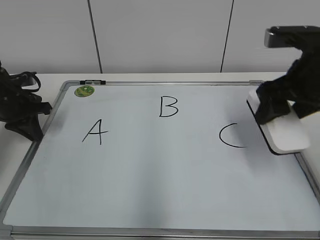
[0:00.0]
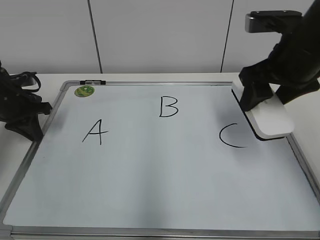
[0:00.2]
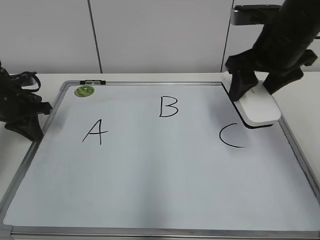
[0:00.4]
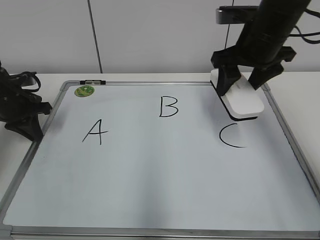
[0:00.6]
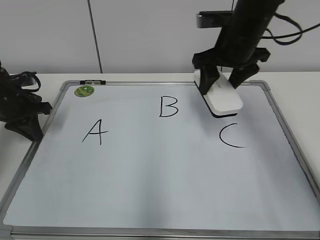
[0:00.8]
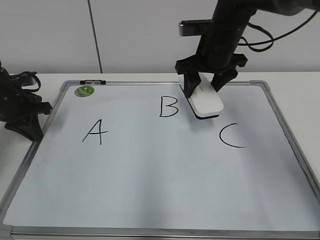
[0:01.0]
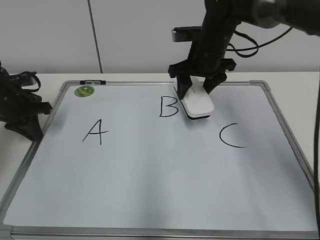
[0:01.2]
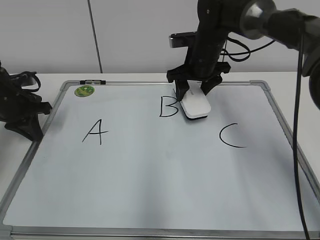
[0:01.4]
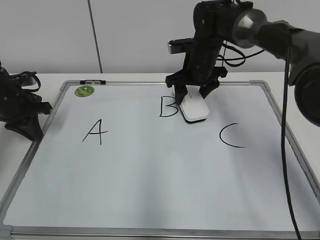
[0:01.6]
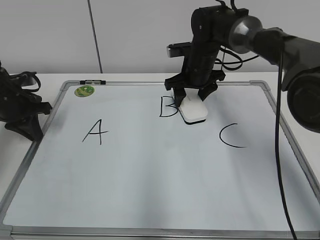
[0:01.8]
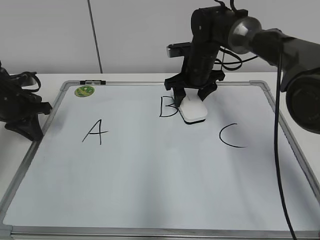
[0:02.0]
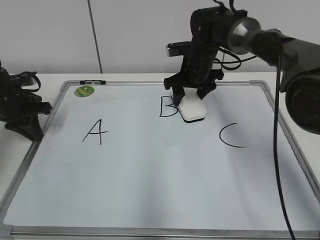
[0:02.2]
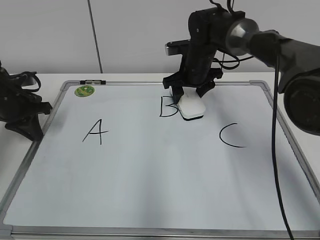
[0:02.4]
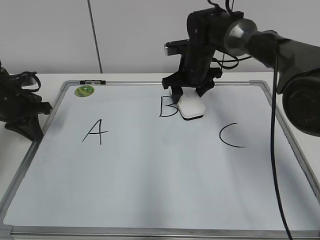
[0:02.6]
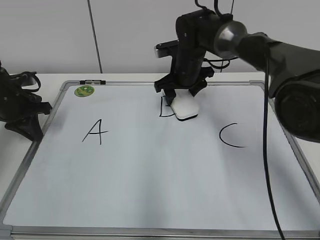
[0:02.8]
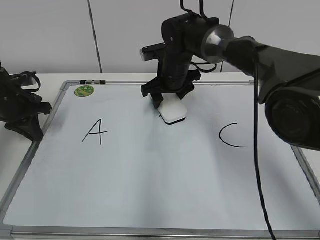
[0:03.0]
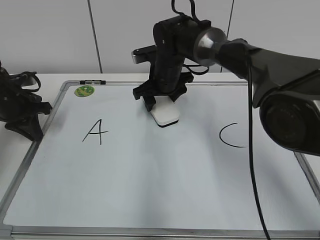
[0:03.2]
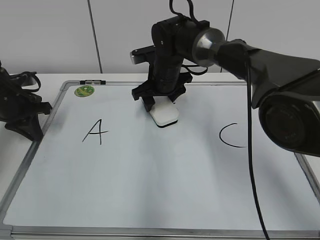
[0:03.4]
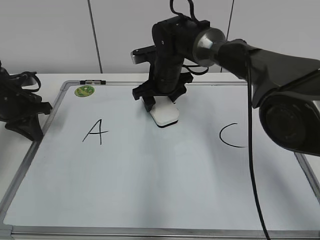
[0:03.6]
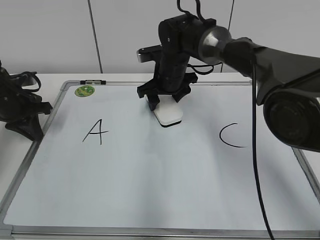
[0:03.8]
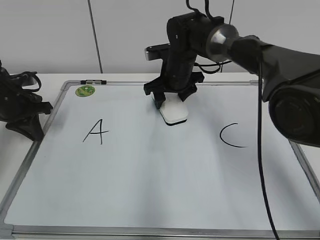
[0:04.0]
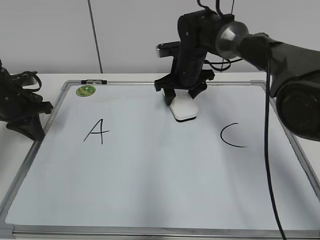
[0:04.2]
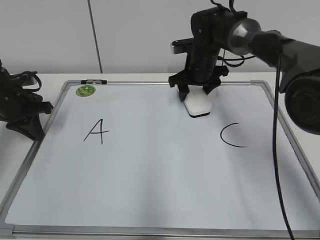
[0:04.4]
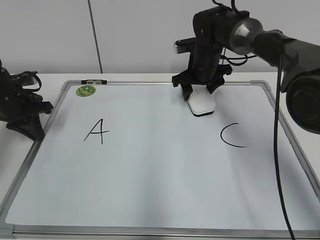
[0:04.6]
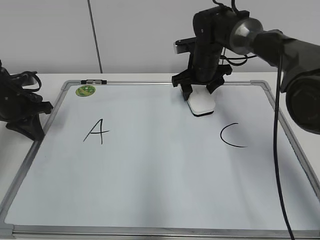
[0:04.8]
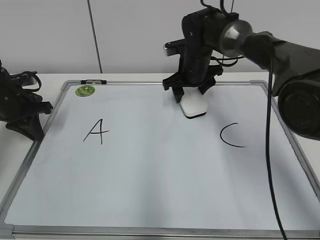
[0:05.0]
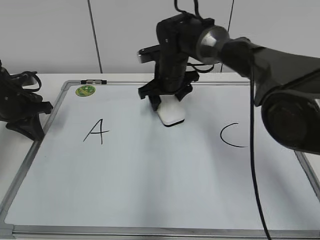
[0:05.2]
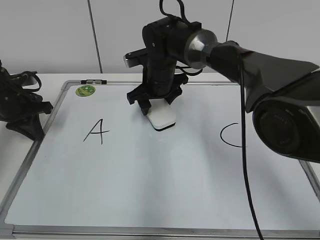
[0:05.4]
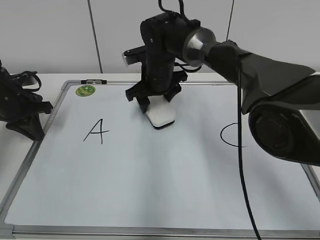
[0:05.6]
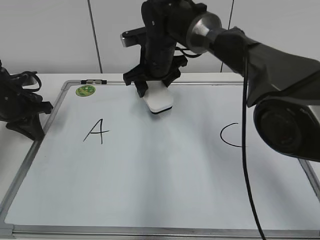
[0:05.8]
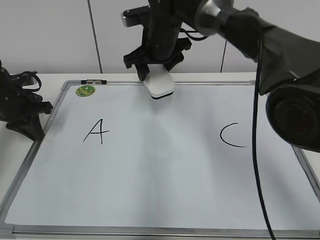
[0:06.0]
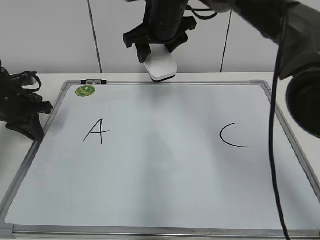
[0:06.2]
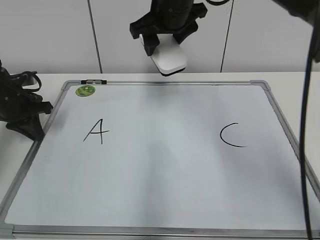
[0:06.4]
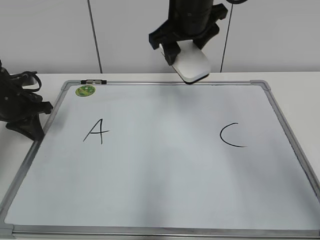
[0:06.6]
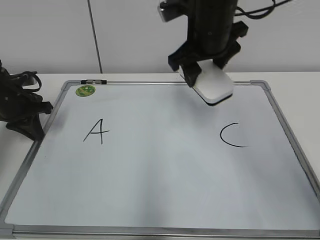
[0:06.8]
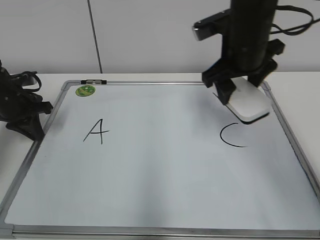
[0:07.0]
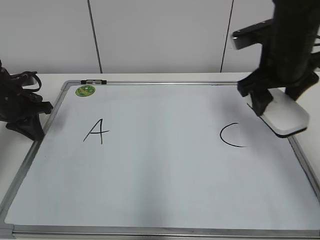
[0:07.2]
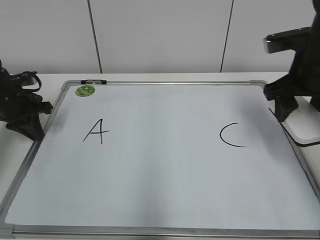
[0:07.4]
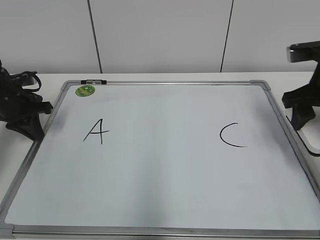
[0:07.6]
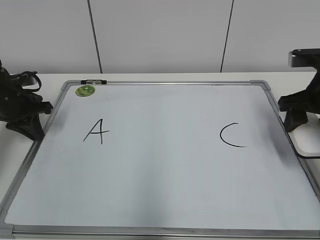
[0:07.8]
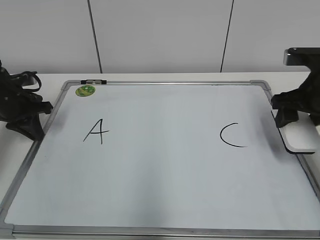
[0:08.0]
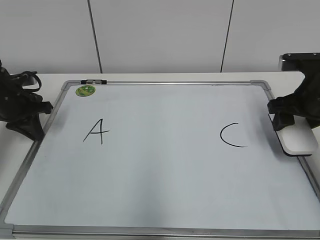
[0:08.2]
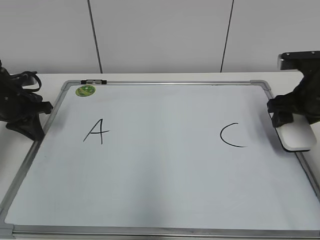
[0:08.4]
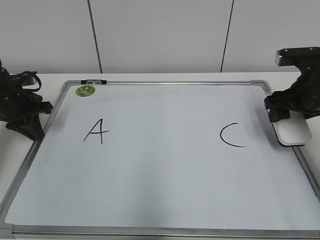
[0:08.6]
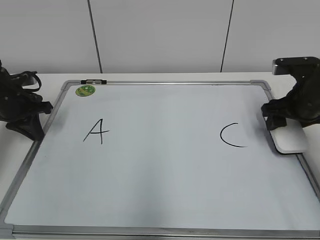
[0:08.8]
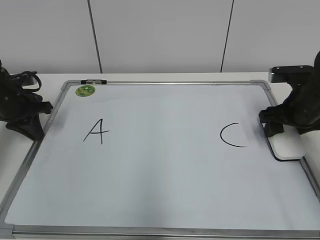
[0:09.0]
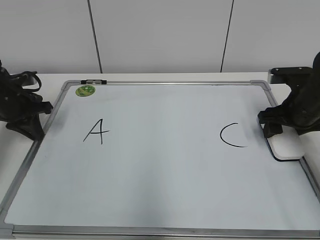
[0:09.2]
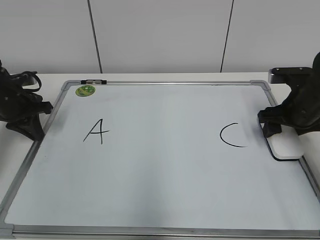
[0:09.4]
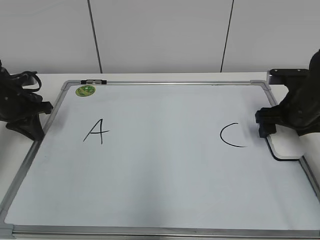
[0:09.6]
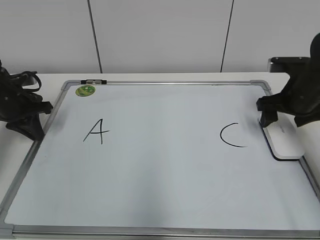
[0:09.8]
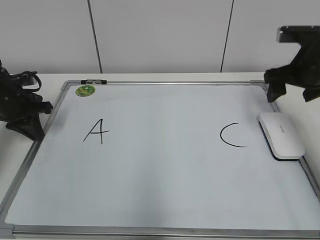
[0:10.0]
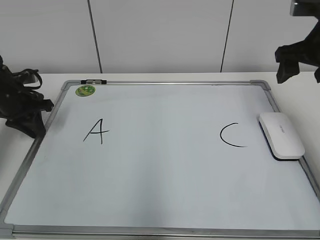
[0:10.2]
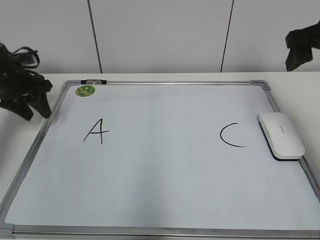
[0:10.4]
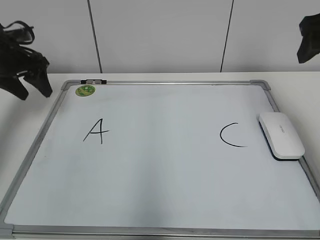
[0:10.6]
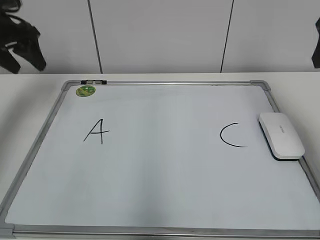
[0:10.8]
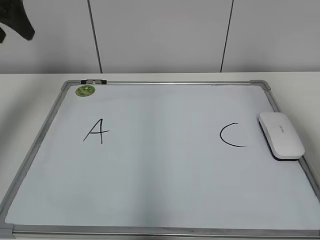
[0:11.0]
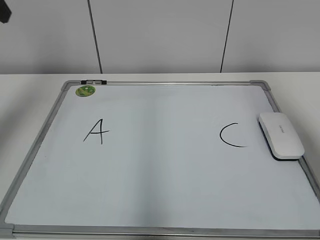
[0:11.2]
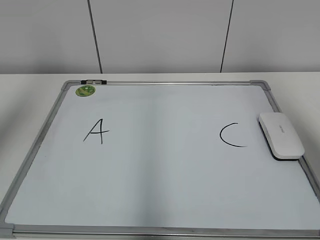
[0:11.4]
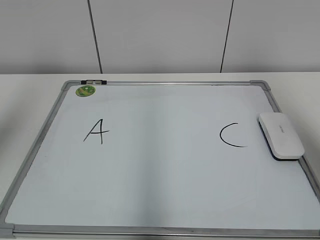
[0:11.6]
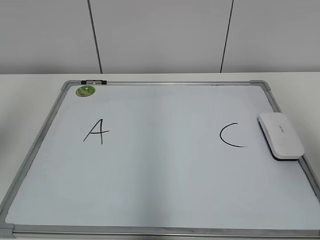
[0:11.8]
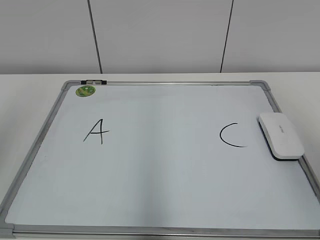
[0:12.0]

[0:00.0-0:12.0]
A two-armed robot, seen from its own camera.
Task of the whole recording: pick up the eraser on the blackboard and erase the letter "B".
Step, 0:00.0 to 0:05.4: Erase the letter B with your right hand.
Step, 0:05.6 to 0:09.6: Put down the eraser with your right hand.
0:00.0 to 0:01.6: The right gripper moves forward, to the left and downward, about 25 cm.
0:01.6 to 0:03.0: The right gripper is displaced to the left by about 5 cm.
0:03.0 to 0:04.4: The right gripper moves to the right, approximately 5 cm.
0:04.4 to 0:06.0: The right gripper travels to the left and upward by approximately 15 cm.
0:06.0 to 0:07.6: The right gripper goes roughly 30 cm to the right and backward.
0:07.6 to 0:09.0: The right gripper heads downward, covering some 5 cm.
0:09.0 to 0:10.4: The right gripper travels upward by about 15 cm, and opens up, while the left gripper ends up some 5 cm from where it was, and opens.
0:10.4 to 0:12.0: The grippers both shift backward and upward by about 30 cm.

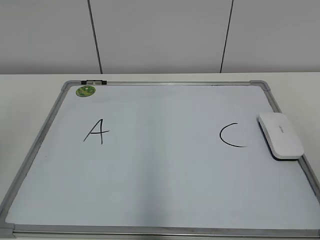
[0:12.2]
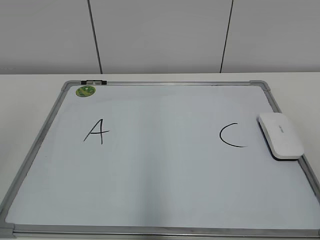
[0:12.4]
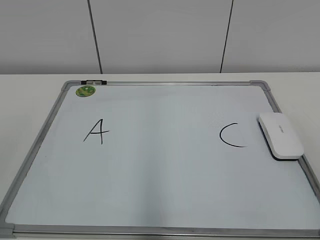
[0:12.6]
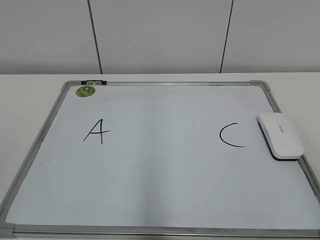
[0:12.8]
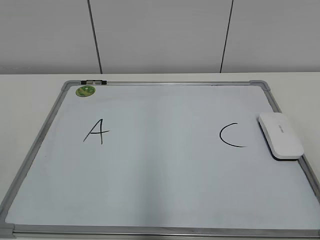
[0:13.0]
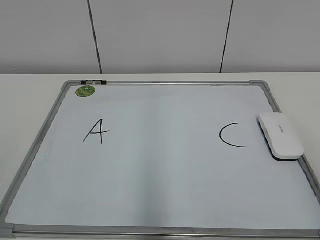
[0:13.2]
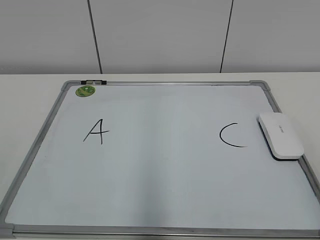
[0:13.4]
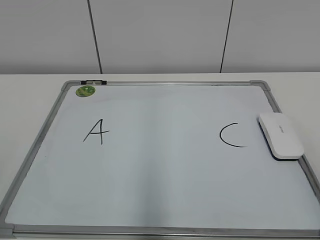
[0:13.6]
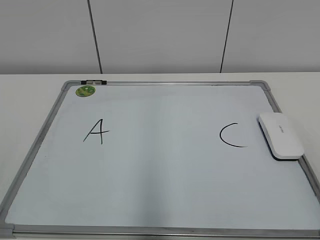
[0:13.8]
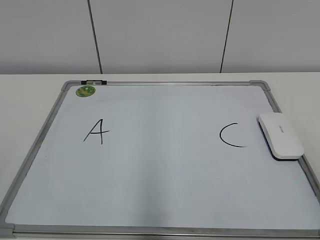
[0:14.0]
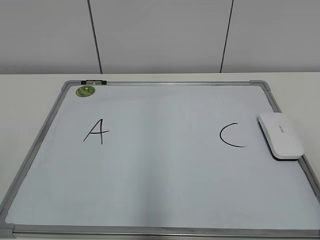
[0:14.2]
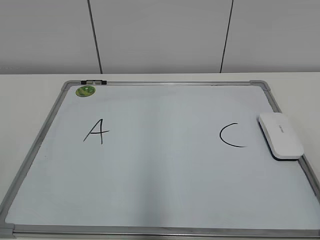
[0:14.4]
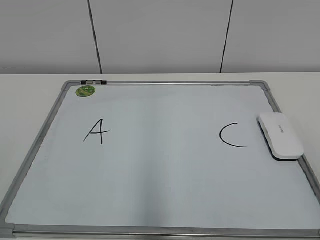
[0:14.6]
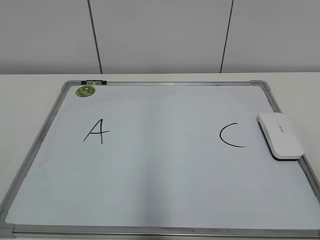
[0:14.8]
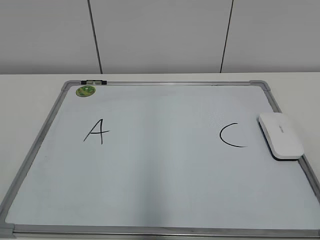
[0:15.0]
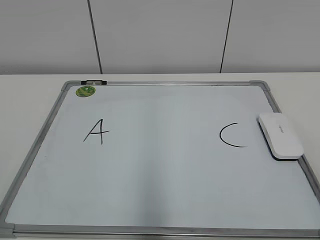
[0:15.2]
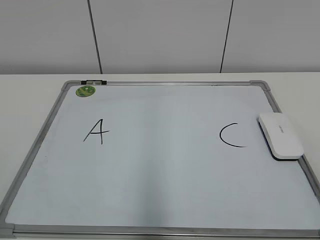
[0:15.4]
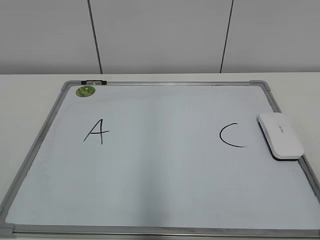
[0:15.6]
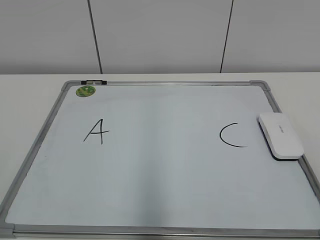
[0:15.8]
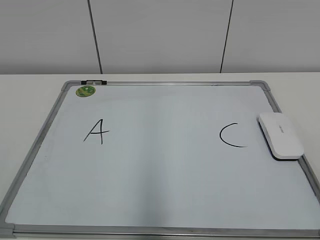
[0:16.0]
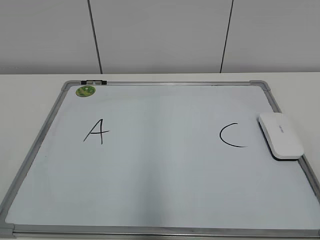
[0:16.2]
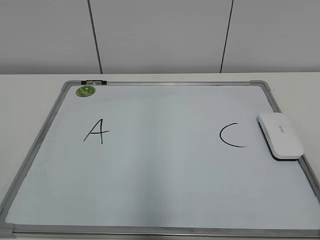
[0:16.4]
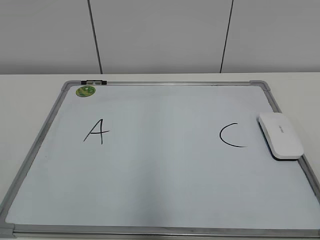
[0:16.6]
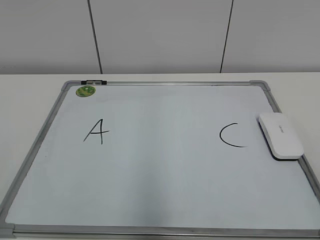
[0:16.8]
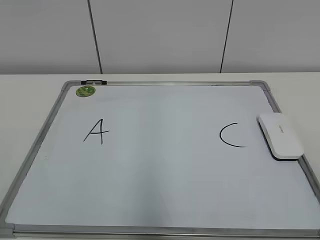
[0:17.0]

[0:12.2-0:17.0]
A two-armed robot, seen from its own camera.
Task of the whole recording: pick up the eraser on the blackboard and erase the letter "B".
0:15.4 to 0:17.0: Neither gripper changes place.
